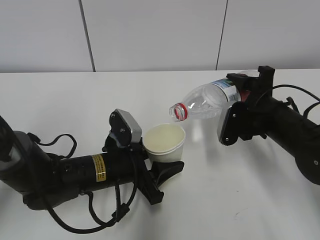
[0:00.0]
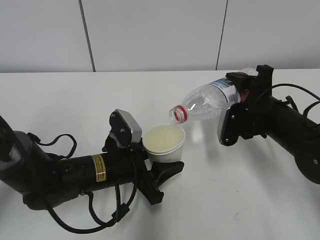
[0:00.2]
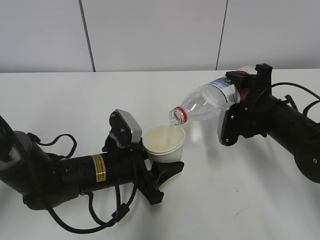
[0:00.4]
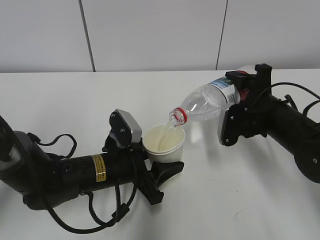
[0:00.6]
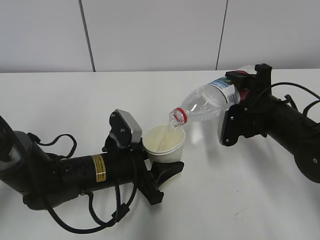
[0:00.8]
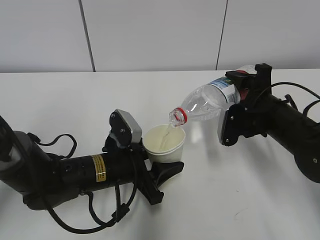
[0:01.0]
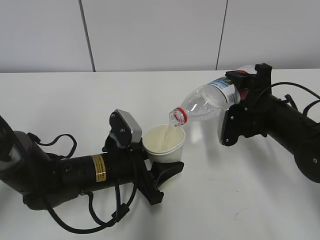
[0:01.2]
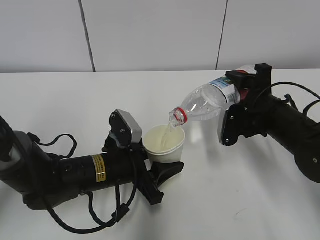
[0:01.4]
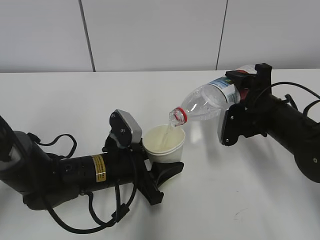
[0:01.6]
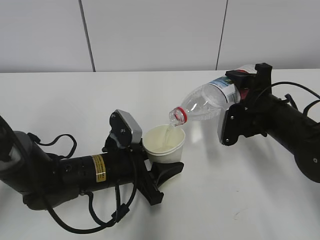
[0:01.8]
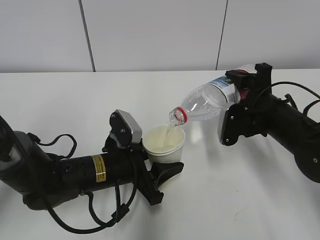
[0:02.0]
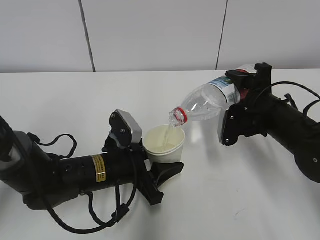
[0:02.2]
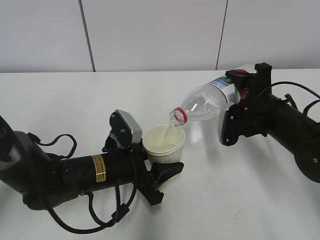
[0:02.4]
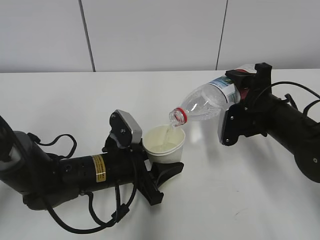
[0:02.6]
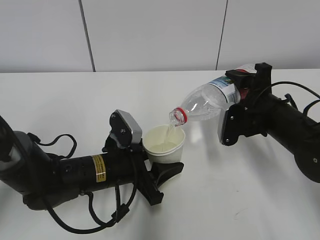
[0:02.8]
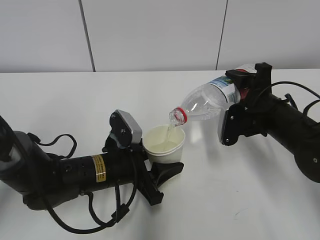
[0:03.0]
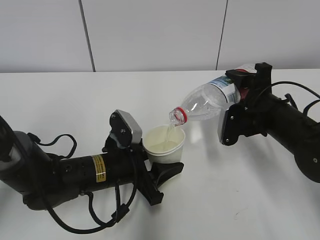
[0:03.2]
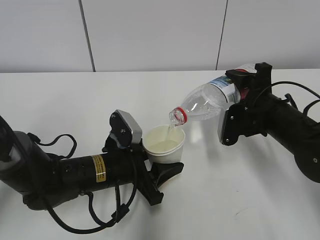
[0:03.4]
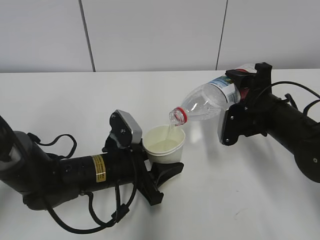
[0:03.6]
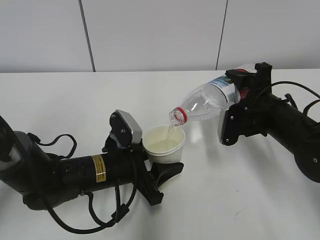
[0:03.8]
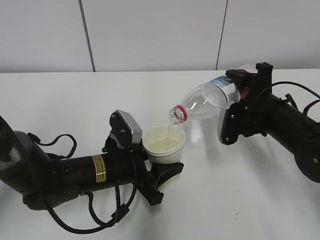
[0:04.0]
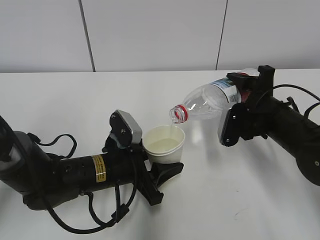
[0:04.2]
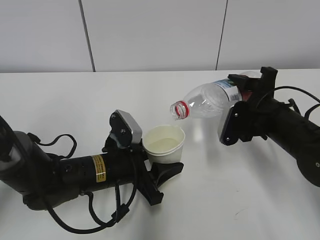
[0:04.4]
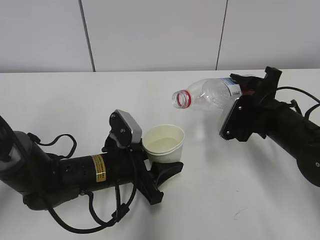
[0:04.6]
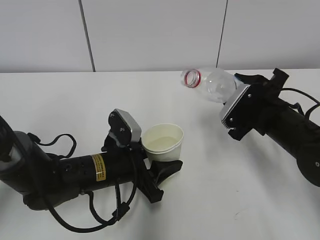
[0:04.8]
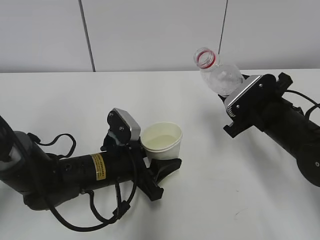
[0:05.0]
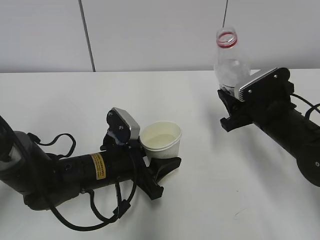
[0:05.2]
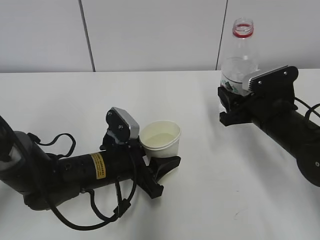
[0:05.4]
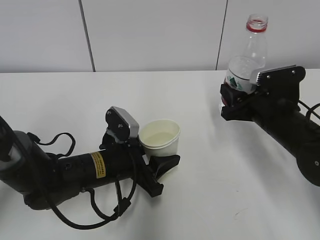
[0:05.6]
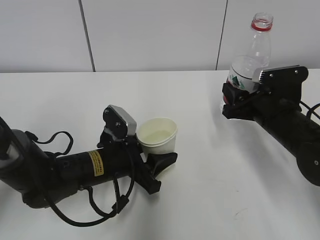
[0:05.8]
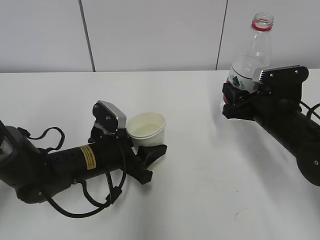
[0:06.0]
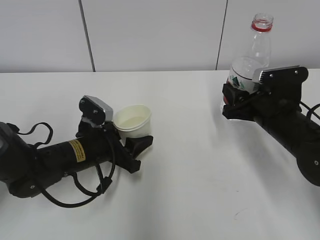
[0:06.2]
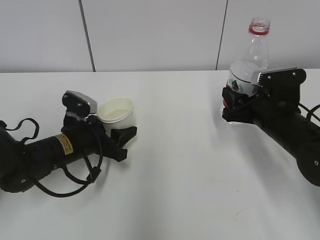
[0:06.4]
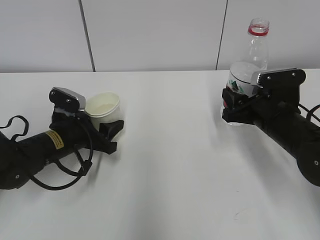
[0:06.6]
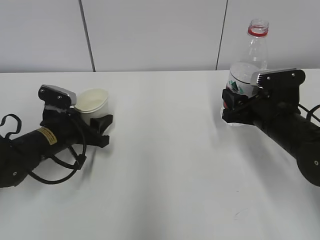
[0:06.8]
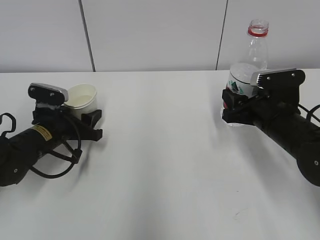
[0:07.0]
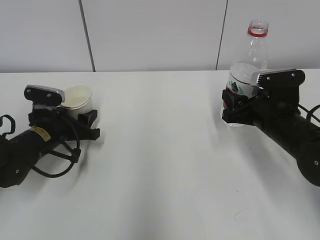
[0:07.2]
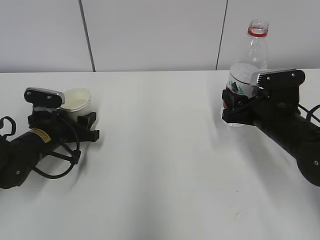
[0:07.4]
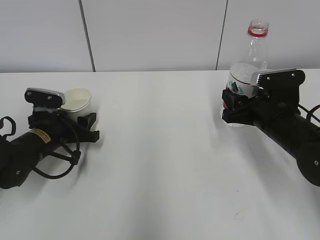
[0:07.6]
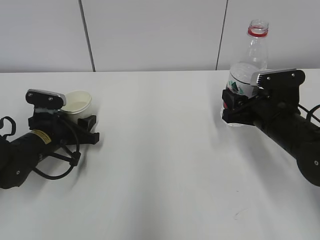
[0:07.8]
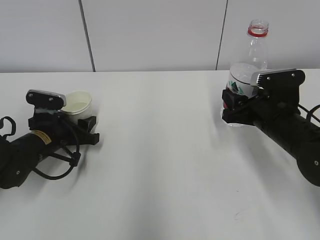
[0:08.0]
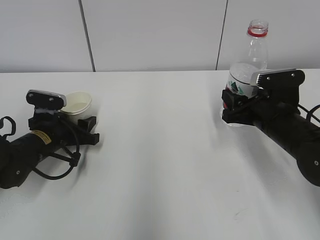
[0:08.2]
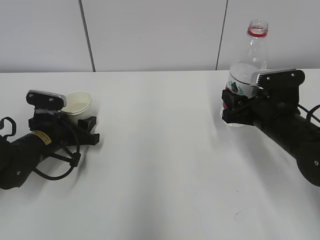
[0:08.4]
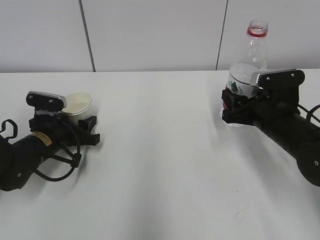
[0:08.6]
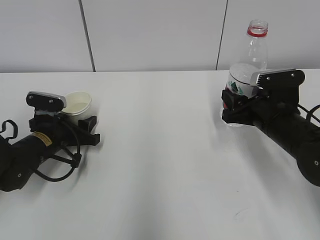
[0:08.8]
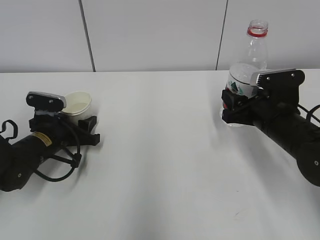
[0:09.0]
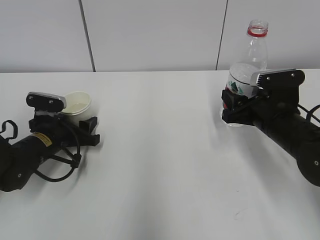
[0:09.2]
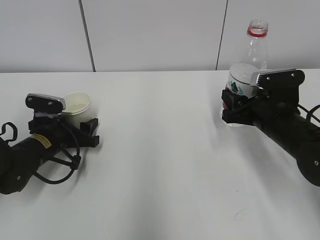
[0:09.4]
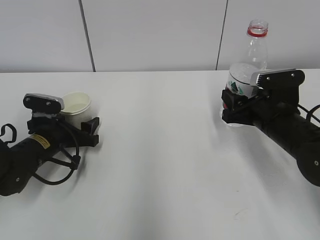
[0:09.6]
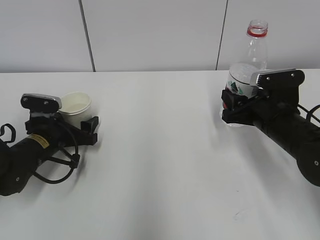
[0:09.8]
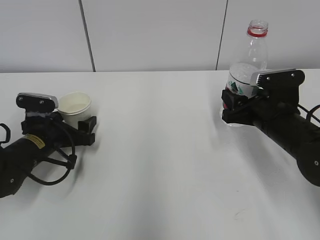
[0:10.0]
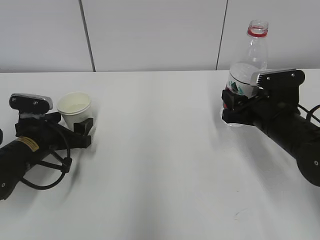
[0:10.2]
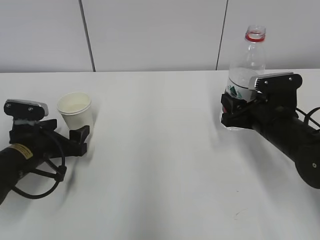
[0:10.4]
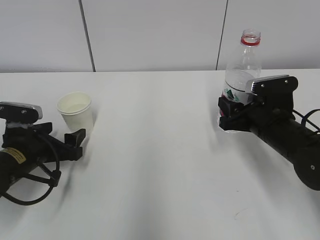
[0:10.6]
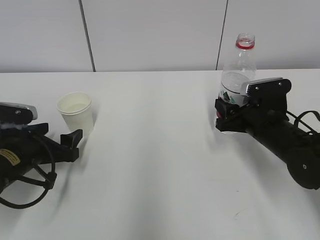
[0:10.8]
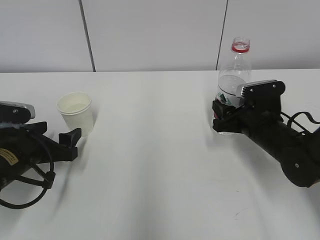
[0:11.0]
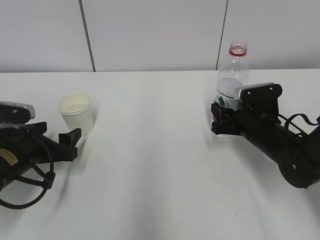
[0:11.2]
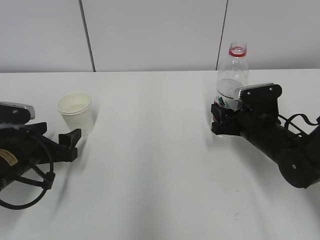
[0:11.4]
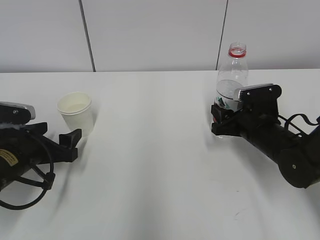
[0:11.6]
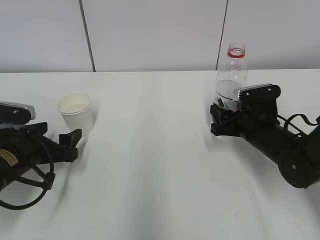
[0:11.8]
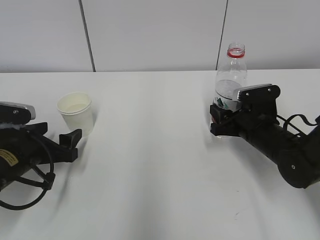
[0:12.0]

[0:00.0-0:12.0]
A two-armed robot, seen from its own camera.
Step, 0:01.8 to 0:04.8: Place the paper cup with the left hand.
0:00.0 to 0:01.6: The grippers move only a little.
0:01.6 to 0:03.0: The two grippers keep their place.
0:03.0 to 0:04.4: The grippers stay close to where they were, moving slightly.
0:06.0 to 0:07.6: The left gripper moves to the left and forward, roughly 10 cm.
0:07.6 to 0:09.0: Both grippers stay about where they are.
0:09.0 to 0:10.4: The left gripper opens up.
0:10.4 to 0:12.0: There are only small adjustments of the grippers.

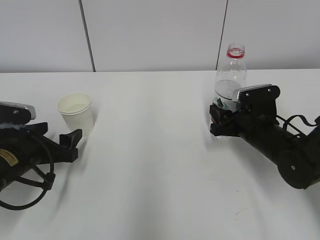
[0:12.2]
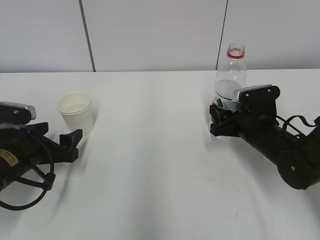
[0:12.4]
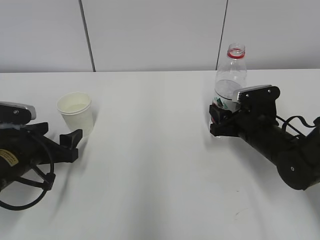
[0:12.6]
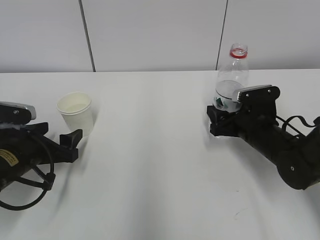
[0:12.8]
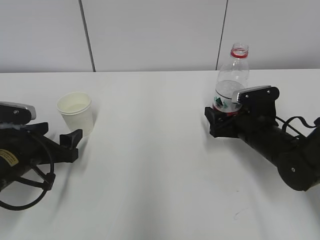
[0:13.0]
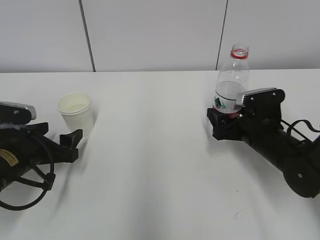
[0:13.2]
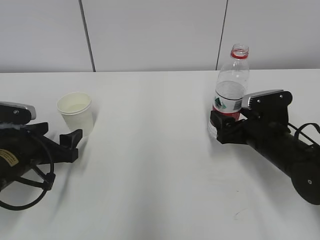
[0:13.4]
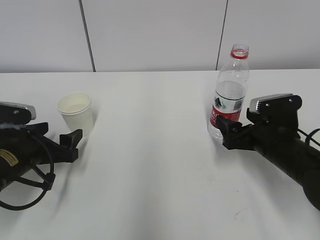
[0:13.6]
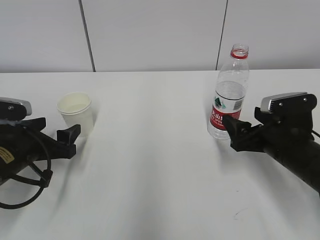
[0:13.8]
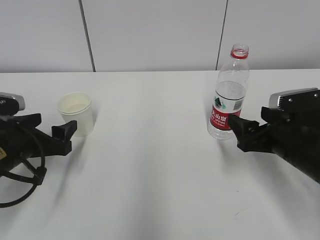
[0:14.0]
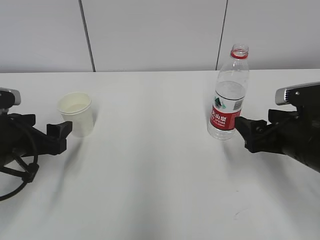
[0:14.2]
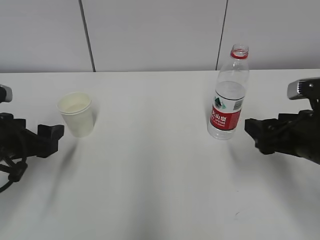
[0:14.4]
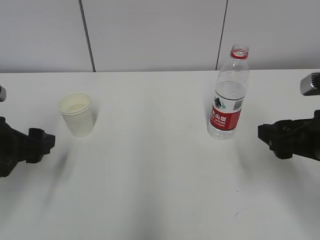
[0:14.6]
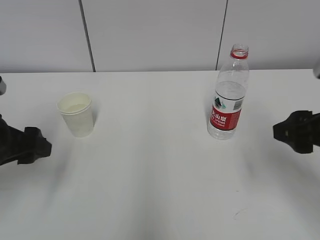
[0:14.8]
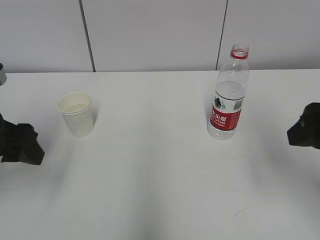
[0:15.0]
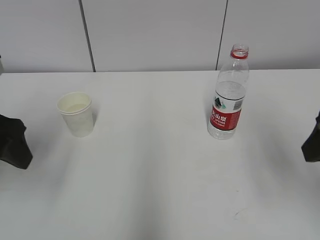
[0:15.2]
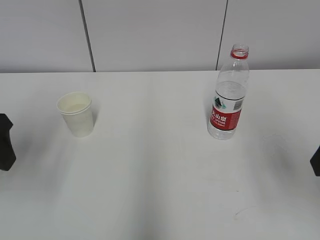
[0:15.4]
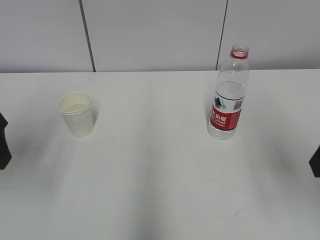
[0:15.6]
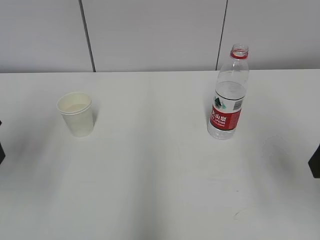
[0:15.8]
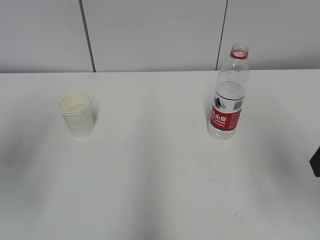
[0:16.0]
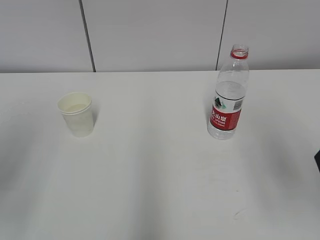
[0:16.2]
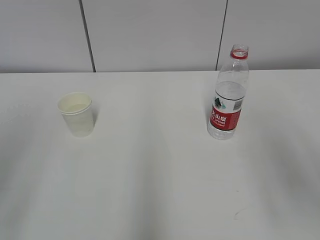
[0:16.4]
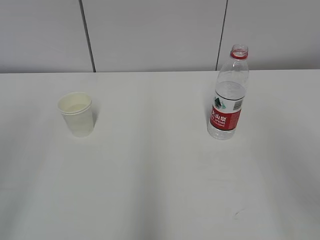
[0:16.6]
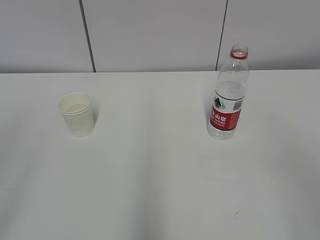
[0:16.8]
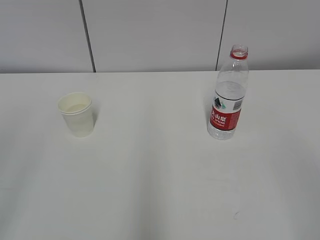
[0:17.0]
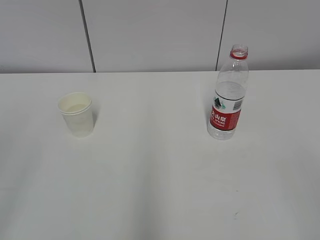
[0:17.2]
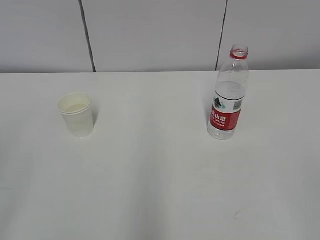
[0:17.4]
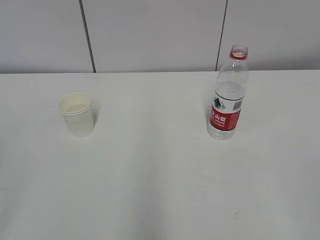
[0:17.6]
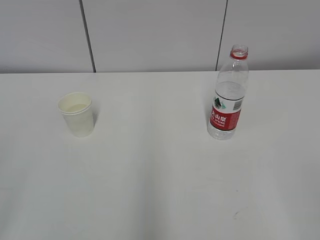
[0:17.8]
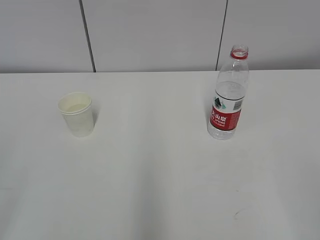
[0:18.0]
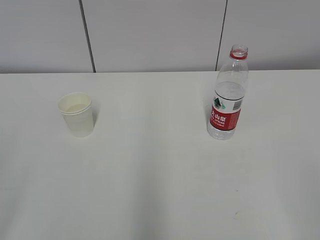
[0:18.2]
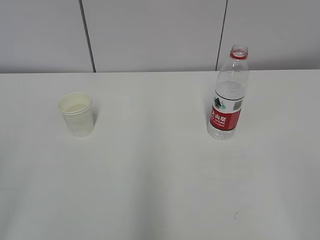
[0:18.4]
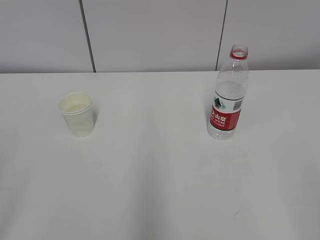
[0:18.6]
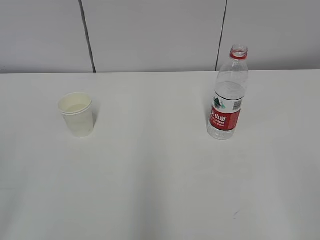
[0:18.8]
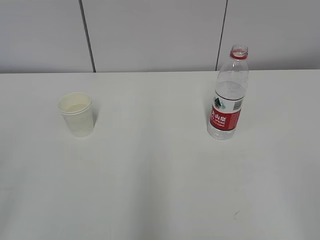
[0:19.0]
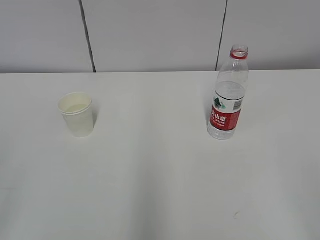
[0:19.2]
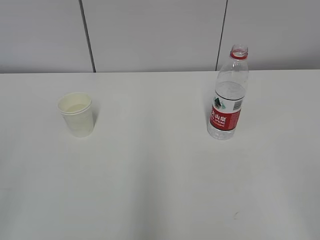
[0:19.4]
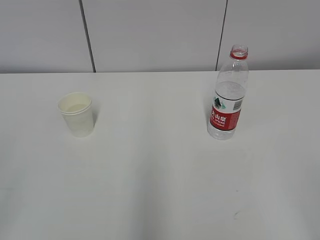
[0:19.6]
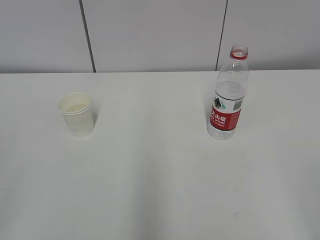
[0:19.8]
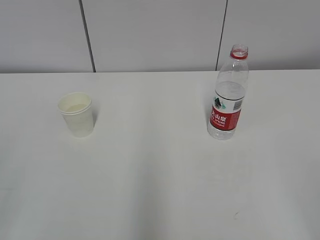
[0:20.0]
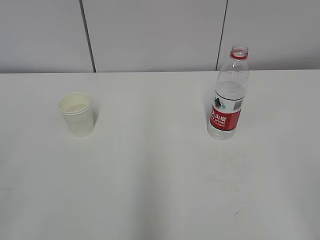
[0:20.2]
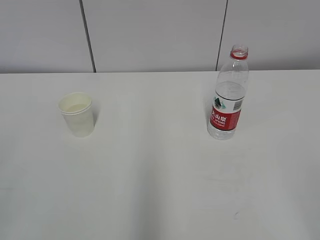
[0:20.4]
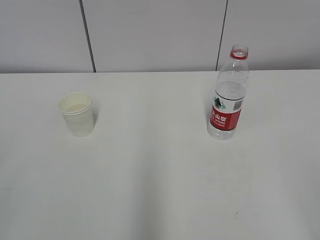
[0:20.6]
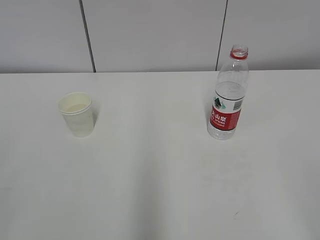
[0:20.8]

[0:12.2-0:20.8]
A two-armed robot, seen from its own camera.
0:12.2 to 0:13.6: The right gripper ends up some 5 cm from where it was, and opens its fingers.
0:13.6 to 0:15.0: The left gripper travels upward by about 15 cm, while the right gripper shifts roughly 20 cm upward and backward, and closes up.
0:15.0 to 0:16.6: The left gripper goes about 20 cm backward and upward. The right gripper travels backward and upward by approximately 10 cm.
0:19.4 to 0:20.8: The two grippers keep their place.
